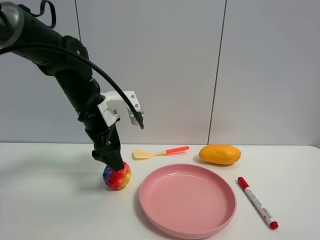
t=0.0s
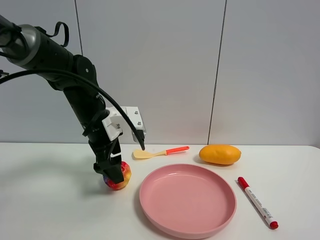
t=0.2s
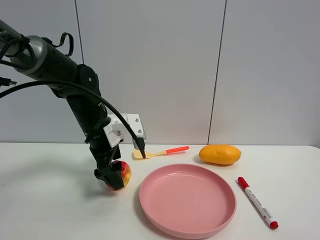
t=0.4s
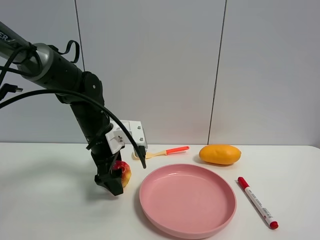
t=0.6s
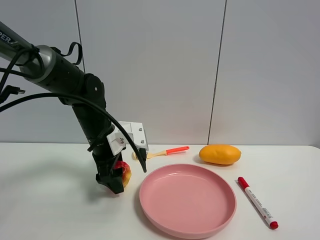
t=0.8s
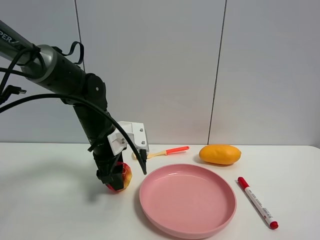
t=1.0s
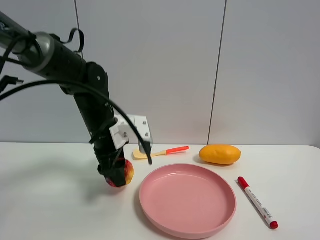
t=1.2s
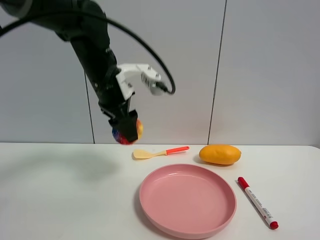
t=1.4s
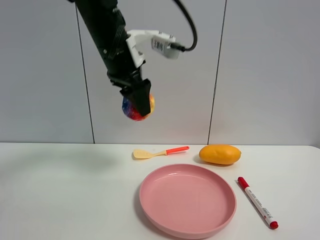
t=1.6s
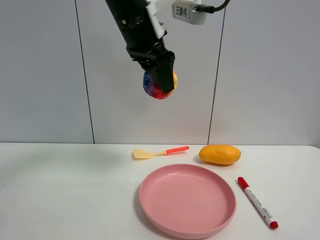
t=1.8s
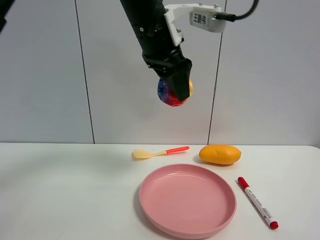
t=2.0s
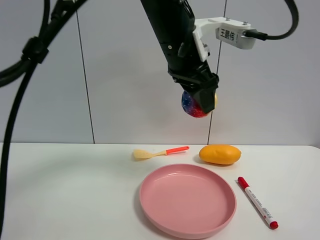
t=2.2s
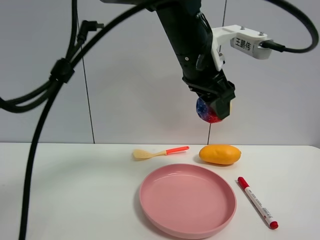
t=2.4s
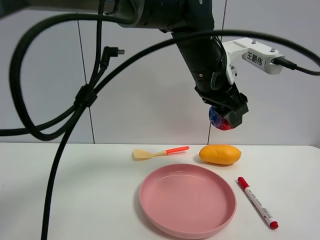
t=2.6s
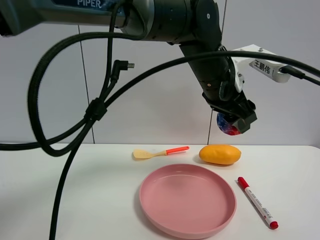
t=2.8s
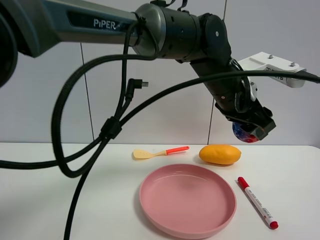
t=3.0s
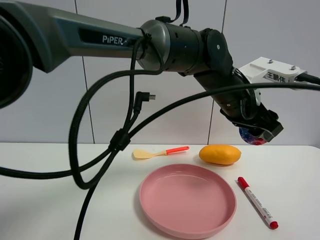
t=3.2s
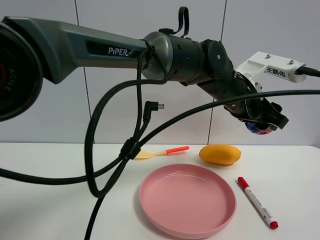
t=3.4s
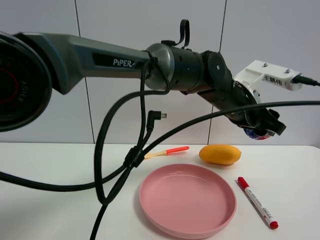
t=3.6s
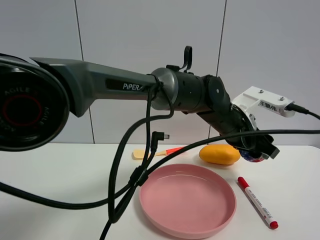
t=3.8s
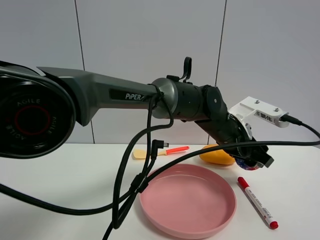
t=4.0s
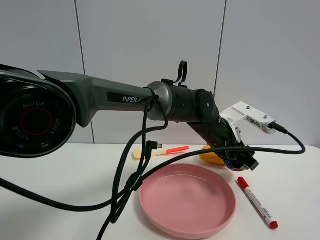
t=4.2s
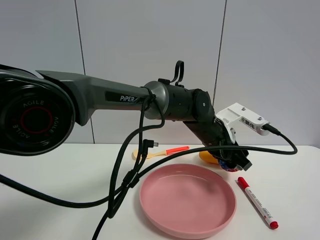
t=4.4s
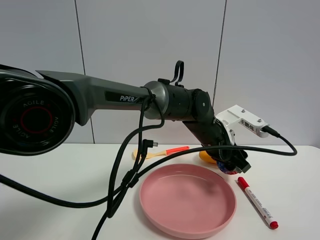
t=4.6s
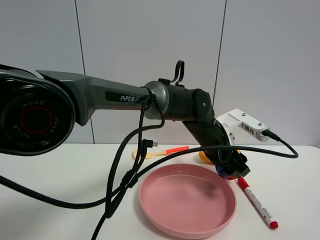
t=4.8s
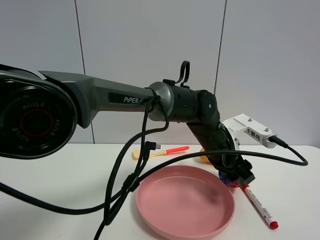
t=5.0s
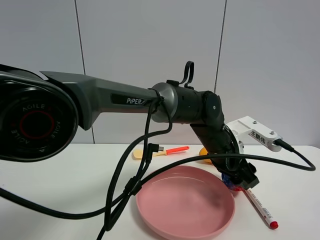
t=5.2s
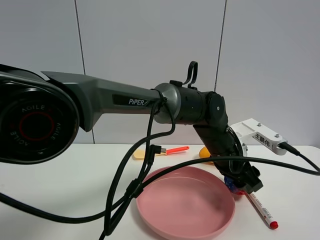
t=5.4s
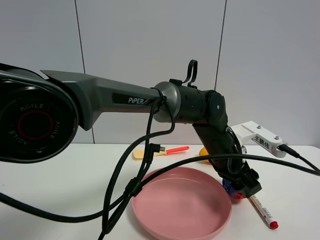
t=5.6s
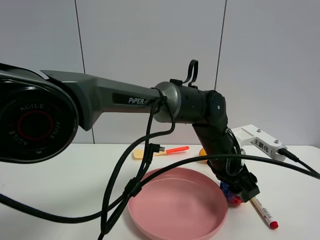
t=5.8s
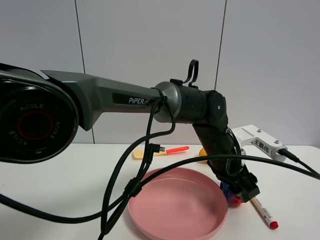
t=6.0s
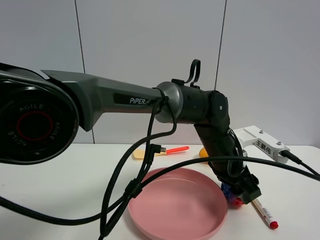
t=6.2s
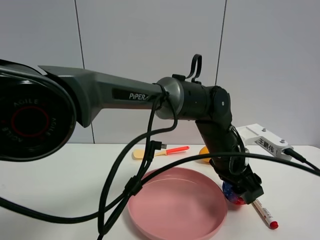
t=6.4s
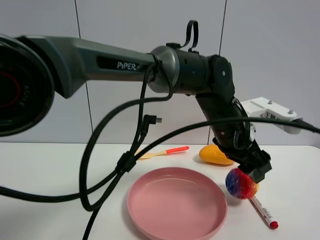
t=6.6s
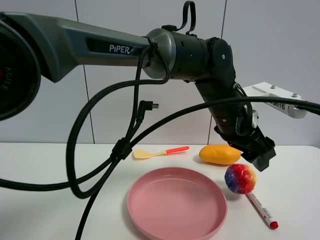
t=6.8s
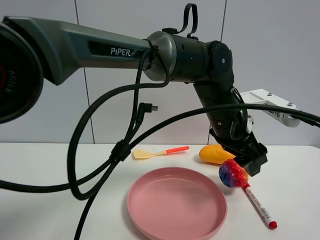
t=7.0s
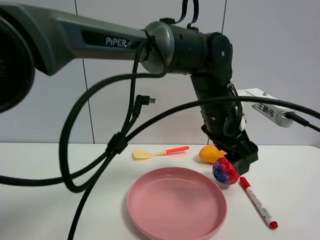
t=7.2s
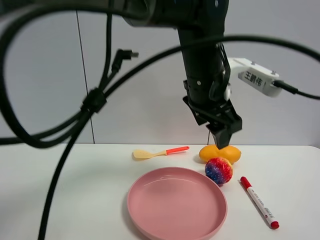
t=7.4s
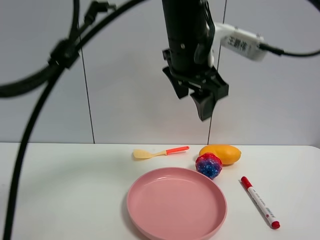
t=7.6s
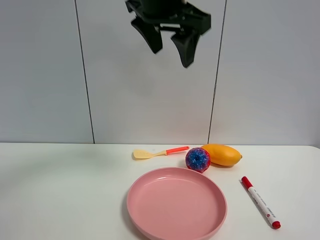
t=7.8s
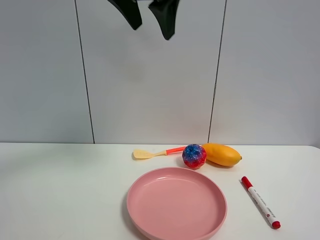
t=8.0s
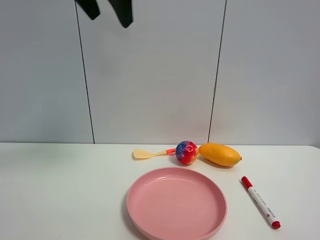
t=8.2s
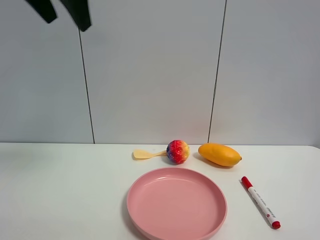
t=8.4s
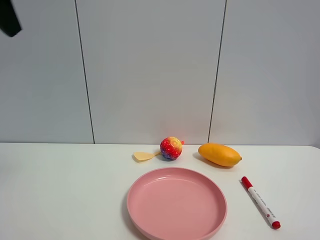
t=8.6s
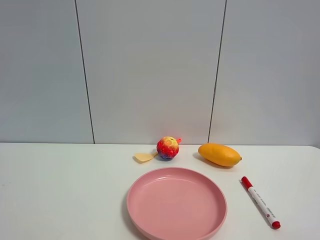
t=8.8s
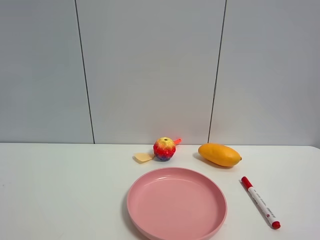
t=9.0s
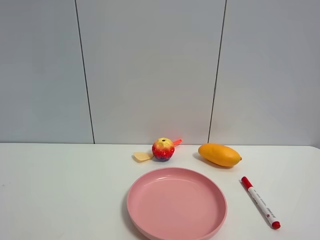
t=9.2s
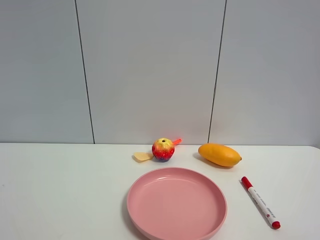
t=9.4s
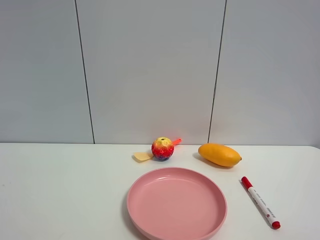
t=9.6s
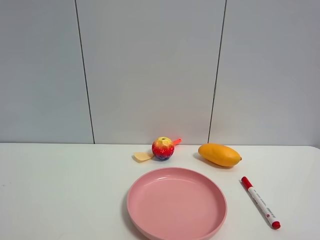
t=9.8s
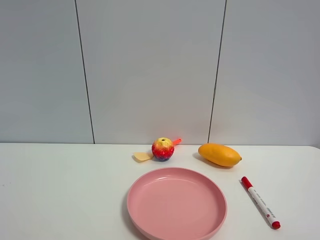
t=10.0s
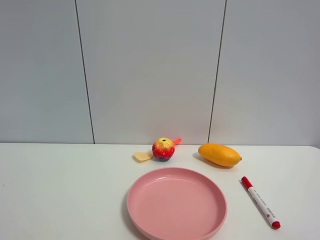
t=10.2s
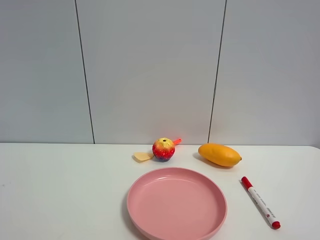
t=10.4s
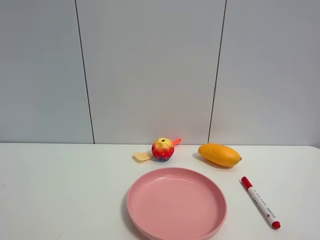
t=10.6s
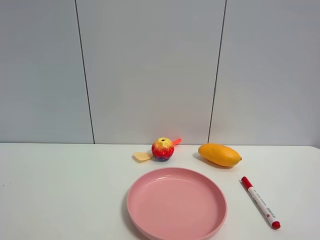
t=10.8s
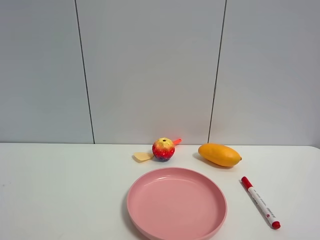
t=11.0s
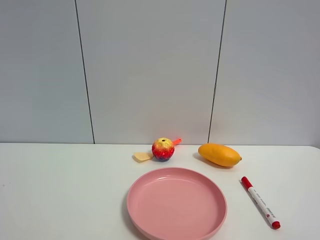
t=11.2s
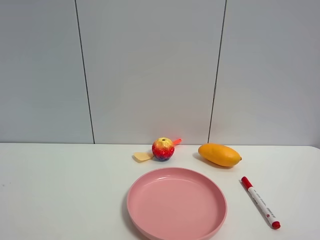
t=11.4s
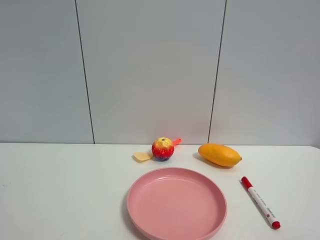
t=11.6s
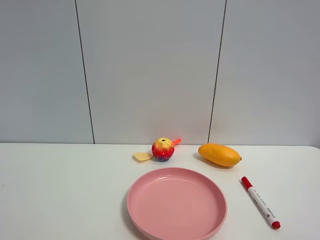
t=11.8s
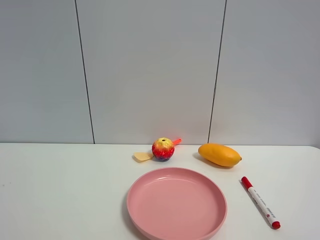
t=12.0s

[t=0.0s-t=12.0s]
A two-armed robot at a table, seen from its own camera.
Task of the whole recording: the gripper move the object.
Step, t=0.0s to t=1.0s: Grasp the colorful ball with the left gripper.
Step, t=1.2s to t=6.6s: Place the colorful ball on the table with the left gripper.
t=0.0s to t=1.6s: The left gripper moves upward and to the right, some 15 cm, and closes up.
t=1.6s to t=3.0s: The left gripper travels to the right and downward by roughly 20 cm.
t=3.0s to t=4.4s: The left gripper is displaced downward by approximately 10 cm.
t=6.0s to t=7.6s: The left gripper heads upward, covering approximately 20 cm.
t=7.6s to t=9.0s: The left gripper goes some 40 cm to the left and backward.

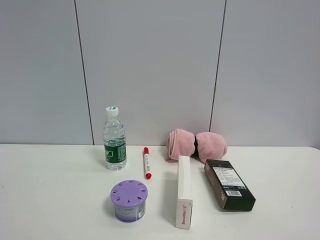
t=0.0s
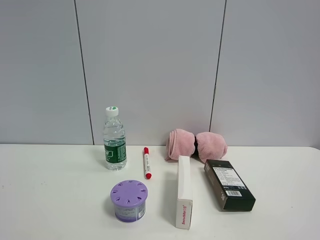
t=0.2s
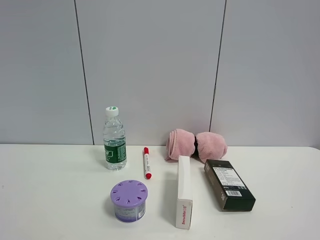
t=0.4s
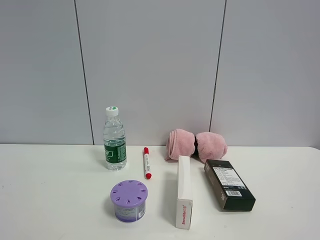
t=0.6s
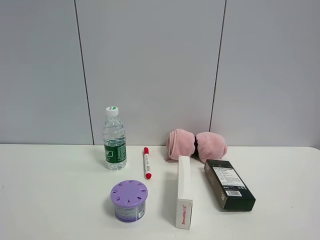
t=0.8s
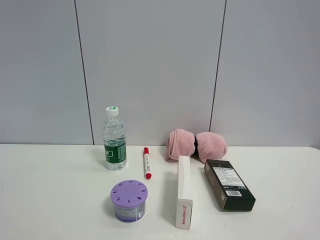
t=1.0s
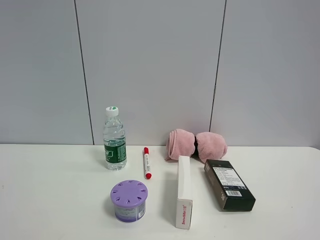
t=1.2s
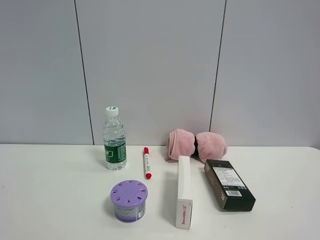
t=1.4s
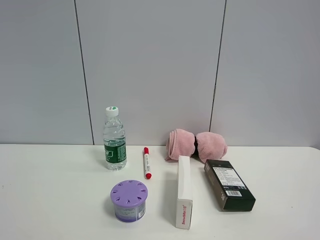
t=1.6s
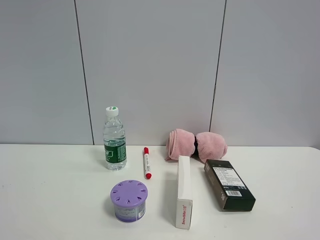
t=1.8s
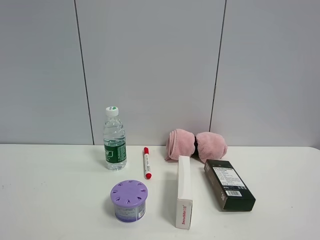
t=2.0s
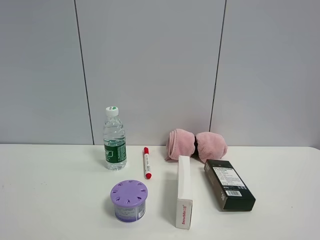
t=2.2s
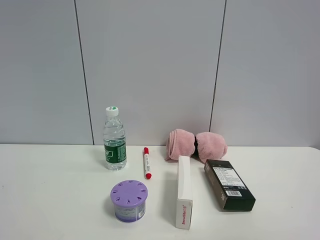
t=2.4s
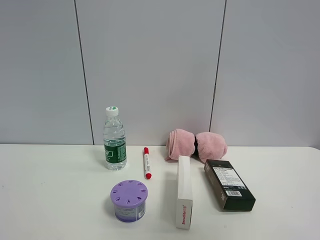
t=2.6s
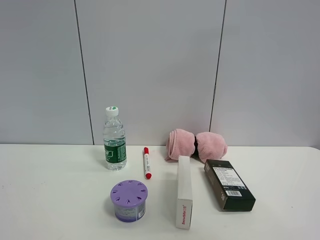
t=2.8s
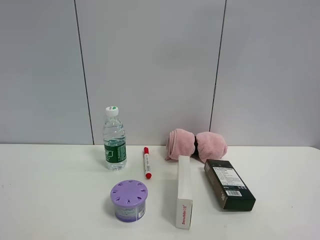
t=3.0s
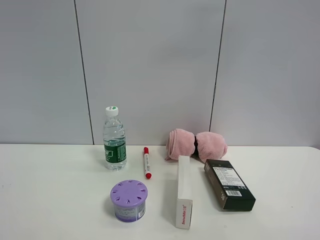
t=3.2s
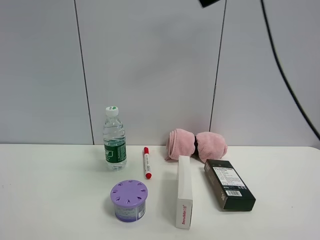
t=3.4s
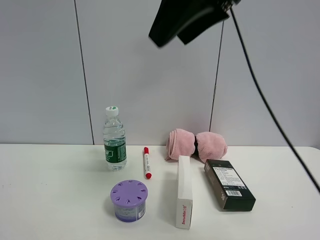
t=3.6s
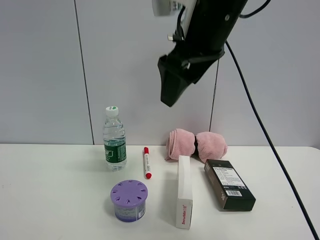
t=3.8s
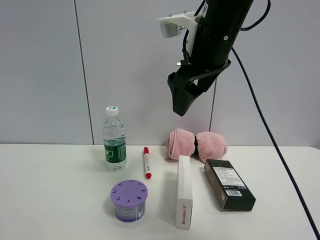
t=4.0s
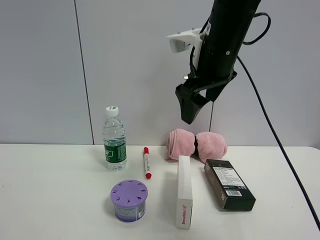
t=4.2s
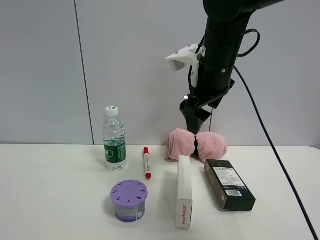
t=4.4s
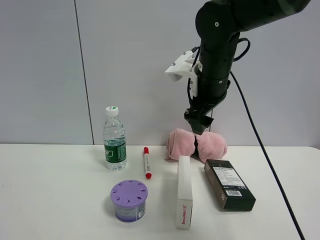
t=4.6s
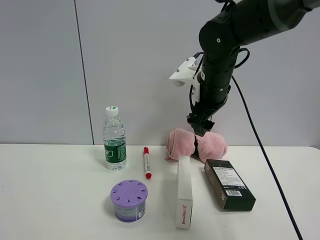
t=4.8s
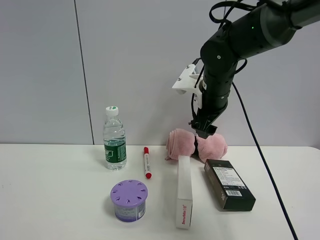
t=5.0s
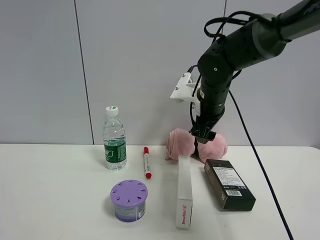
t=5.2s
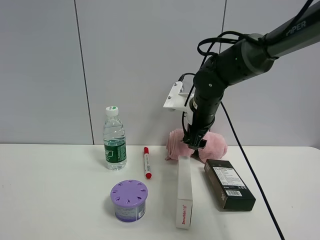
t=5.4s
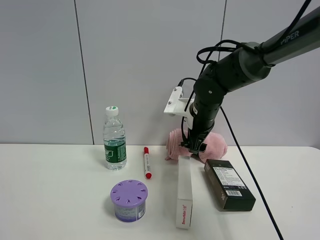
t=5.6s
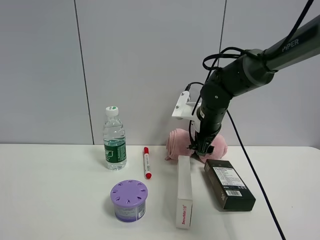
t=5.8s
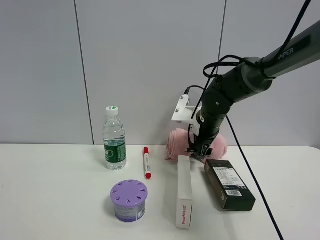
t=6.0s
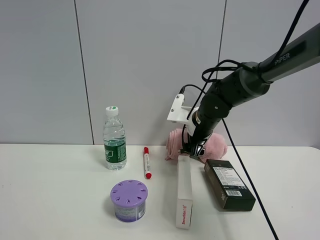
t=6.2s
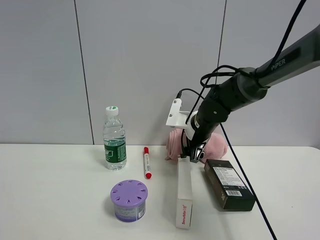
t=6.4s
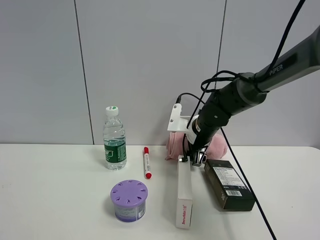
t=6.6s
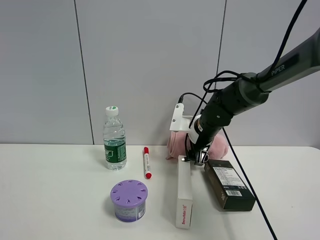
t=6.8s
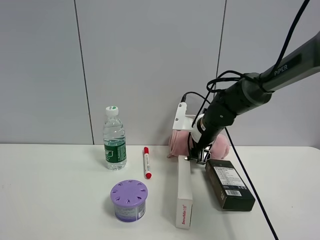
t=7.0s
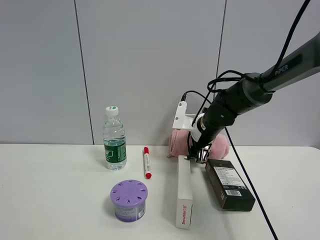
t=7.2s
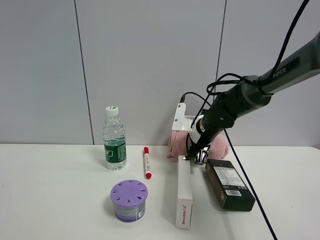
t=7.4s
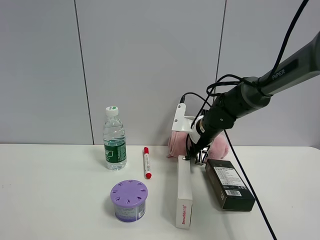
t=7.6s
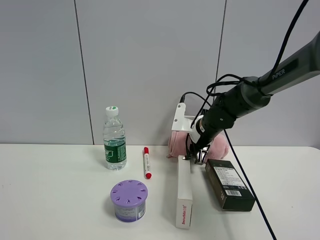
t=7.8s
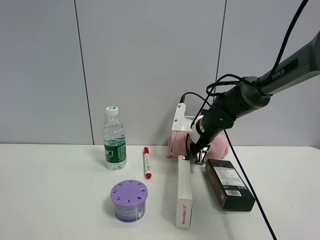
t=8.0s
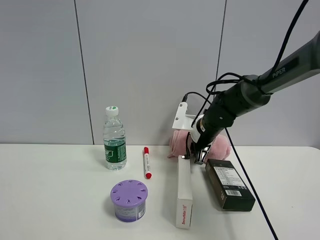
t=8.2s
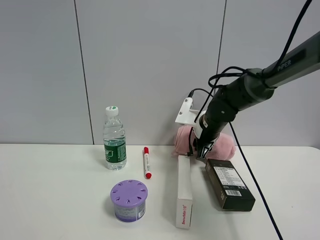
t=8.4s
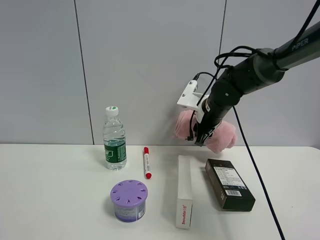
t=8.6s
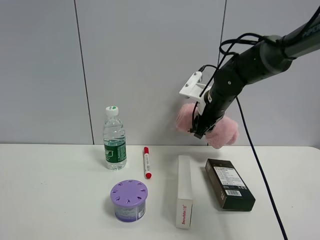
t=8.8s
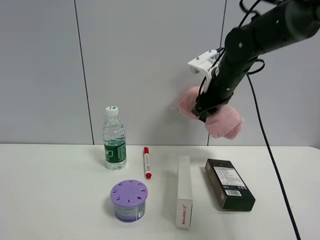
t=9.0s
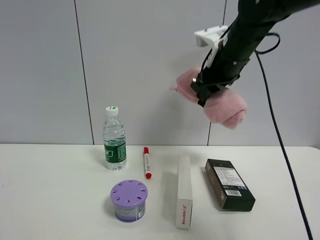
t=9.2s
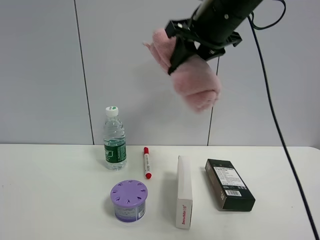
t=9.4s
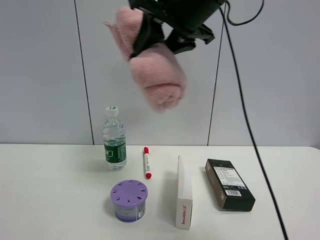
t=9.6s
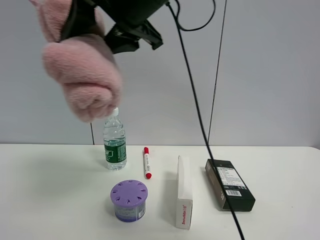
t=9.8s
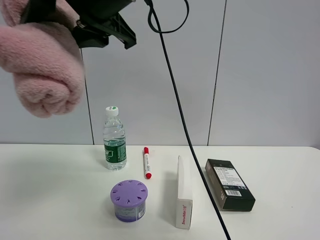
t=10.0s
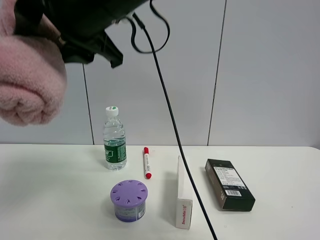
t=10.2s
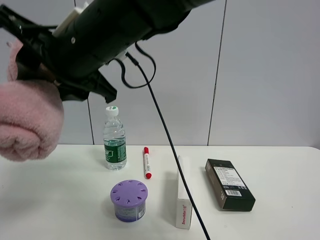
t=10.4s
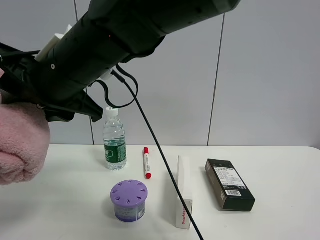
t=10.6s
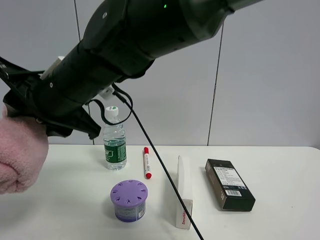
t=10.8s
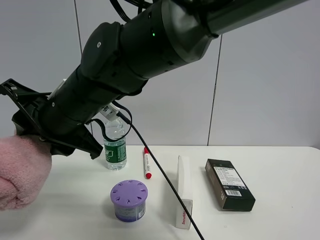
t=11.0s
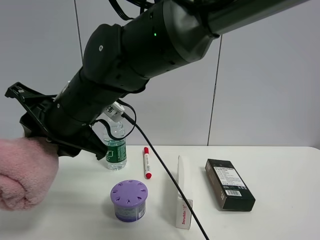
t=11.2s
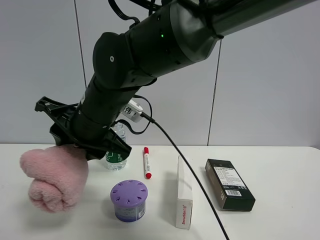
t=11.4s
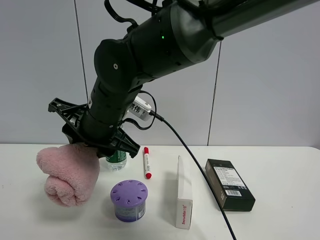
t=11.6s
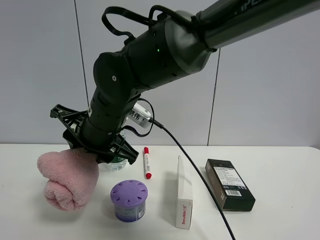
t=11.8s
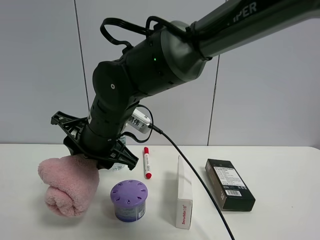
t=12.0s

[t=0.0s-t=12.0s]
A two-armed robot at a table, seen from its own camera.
Task of the whole recording: the gripper move the object.
Step, t=0.0s to t=7.6s: Grasp the pink towel with the right gripper.
t=0.0s to t=1.6s: Both grippers stay put.
t=1.6s to t=3.0s: The right gripper goes approximately 30 cm forward and upward.
t=3.0s to t=4.4s: The right gripper heads downward, to the left and forward, covering approximately 30 cm.
t=4.4s to t=6.0s: The right gripper goes some 15 cm downward and forward.
t=6.0s to t=7.6s: The right gripper closes.
t=7.6s to t=9.0s: The right gripper heads upward, covering about 15 cm.
t=9.0s to t=10.4s: The right gripper heads to the left and backward, covering approximately 30 cm.
t=10.4s to t=12.0s: The right gripper shifts approximately 10 cm downward.
